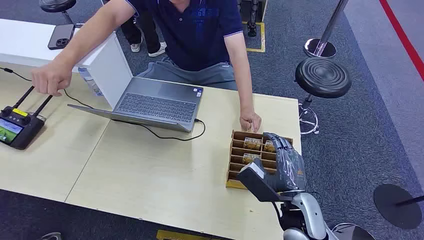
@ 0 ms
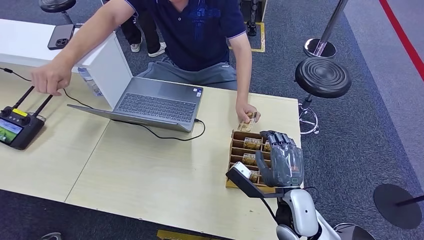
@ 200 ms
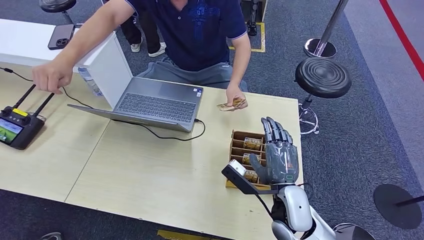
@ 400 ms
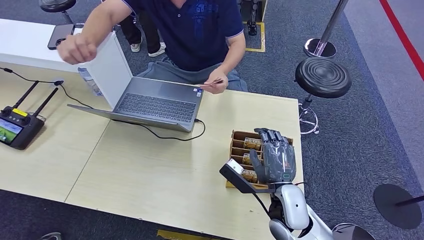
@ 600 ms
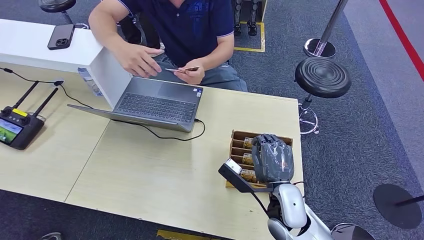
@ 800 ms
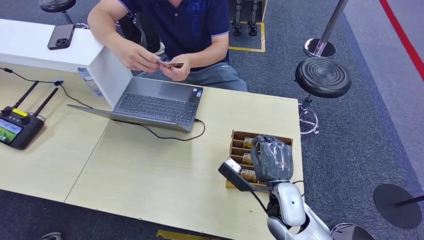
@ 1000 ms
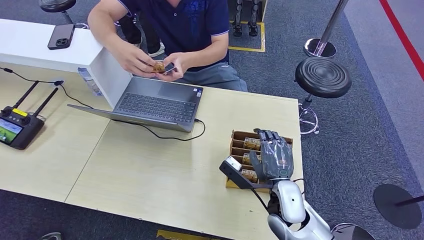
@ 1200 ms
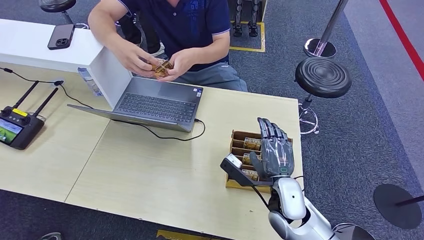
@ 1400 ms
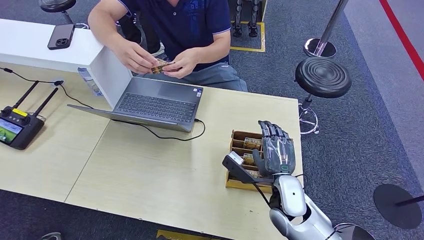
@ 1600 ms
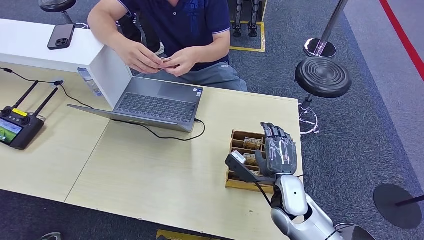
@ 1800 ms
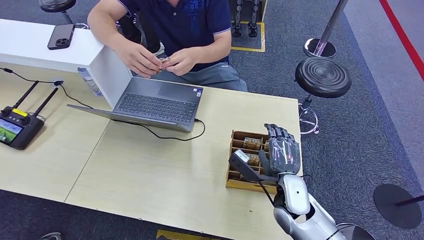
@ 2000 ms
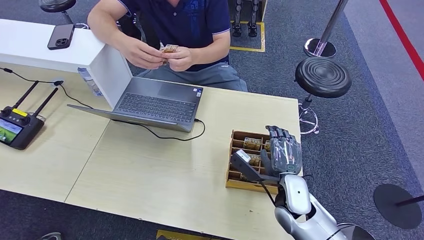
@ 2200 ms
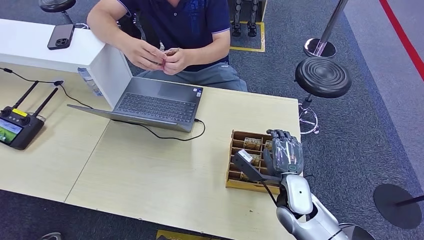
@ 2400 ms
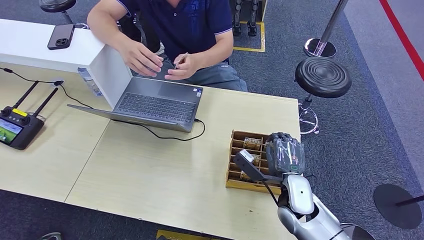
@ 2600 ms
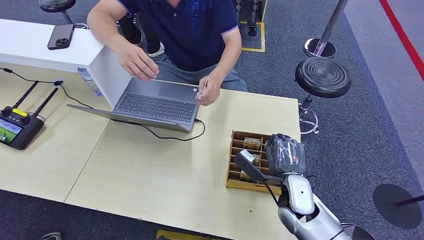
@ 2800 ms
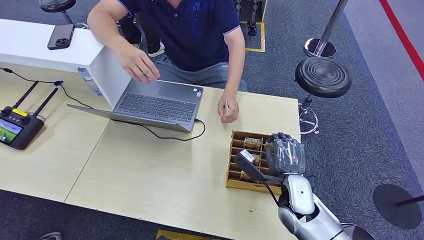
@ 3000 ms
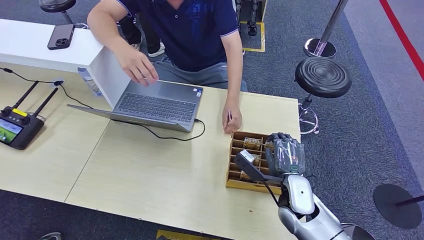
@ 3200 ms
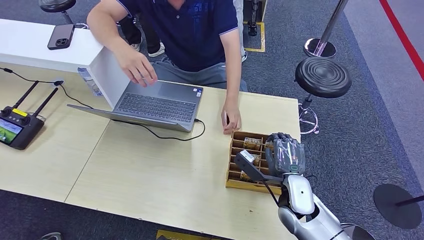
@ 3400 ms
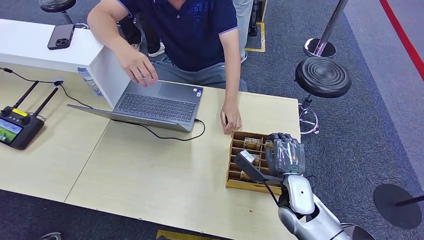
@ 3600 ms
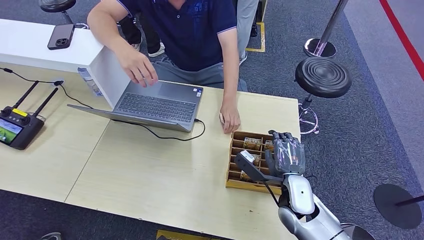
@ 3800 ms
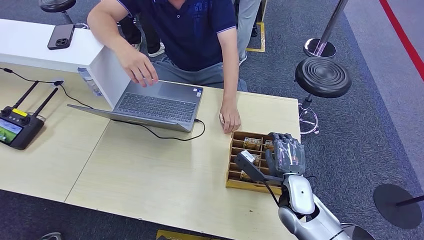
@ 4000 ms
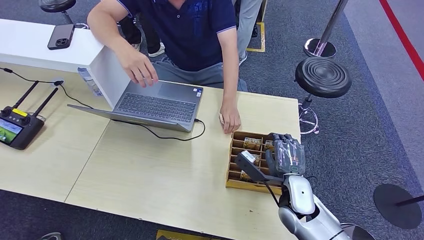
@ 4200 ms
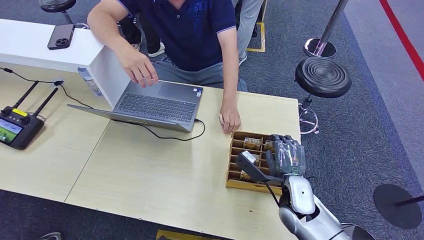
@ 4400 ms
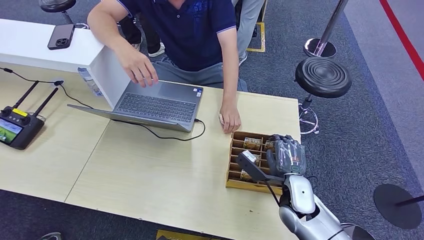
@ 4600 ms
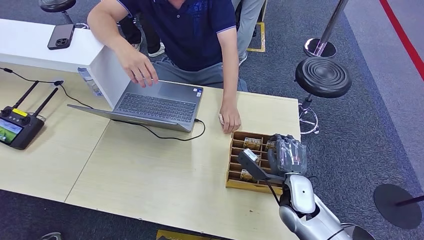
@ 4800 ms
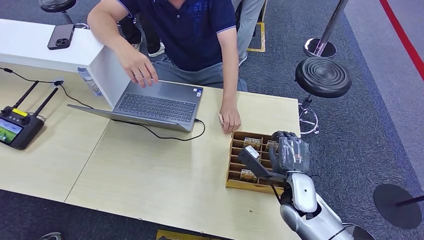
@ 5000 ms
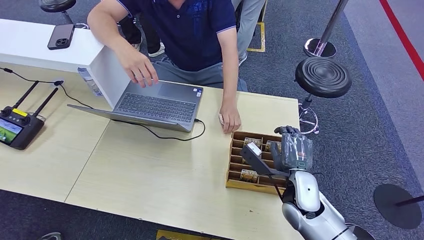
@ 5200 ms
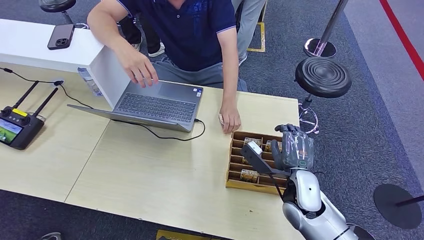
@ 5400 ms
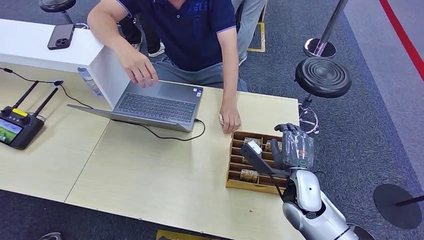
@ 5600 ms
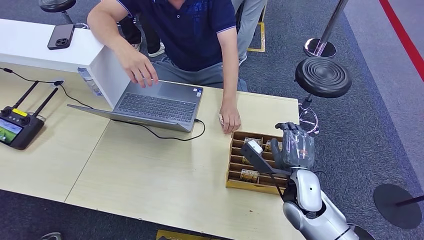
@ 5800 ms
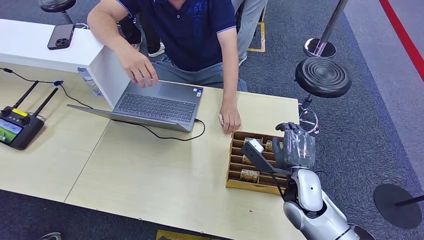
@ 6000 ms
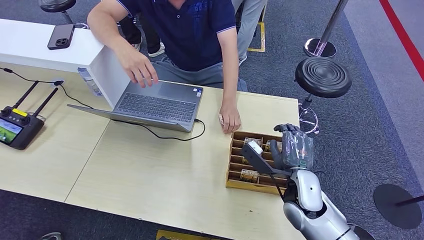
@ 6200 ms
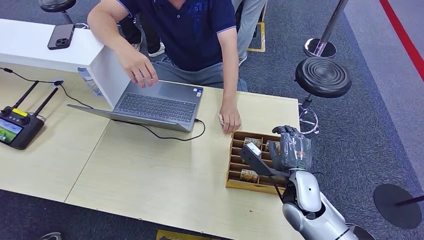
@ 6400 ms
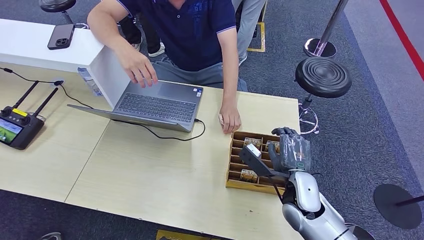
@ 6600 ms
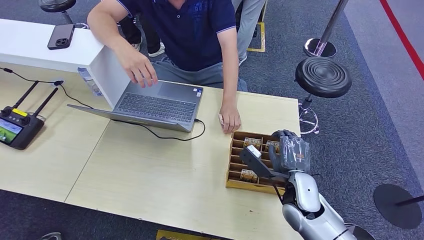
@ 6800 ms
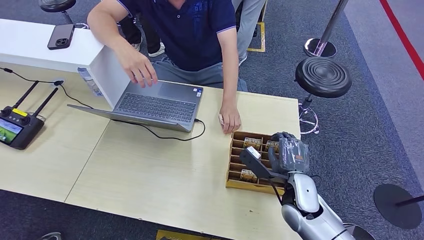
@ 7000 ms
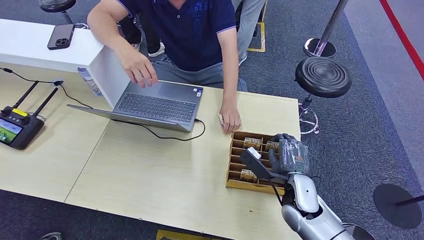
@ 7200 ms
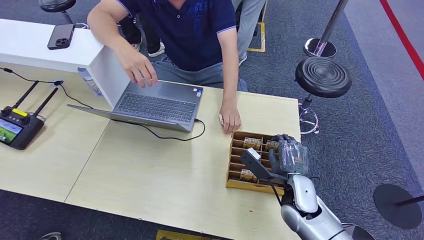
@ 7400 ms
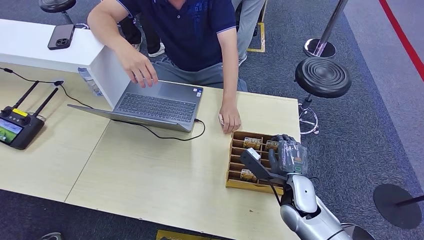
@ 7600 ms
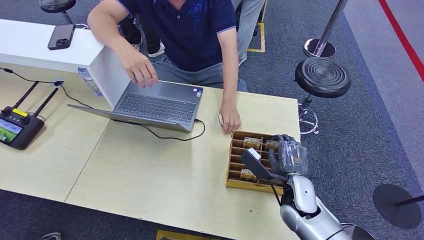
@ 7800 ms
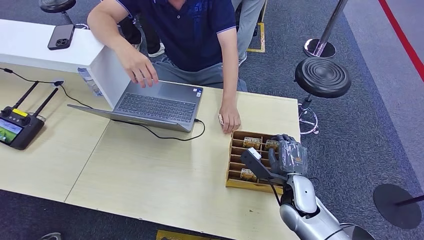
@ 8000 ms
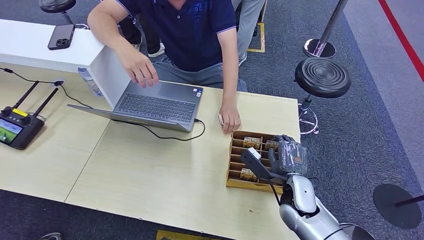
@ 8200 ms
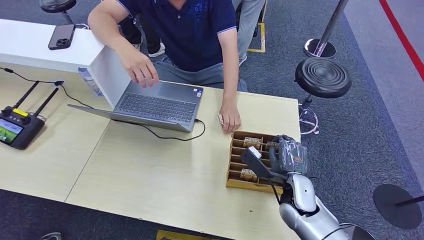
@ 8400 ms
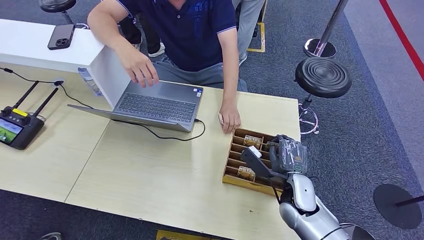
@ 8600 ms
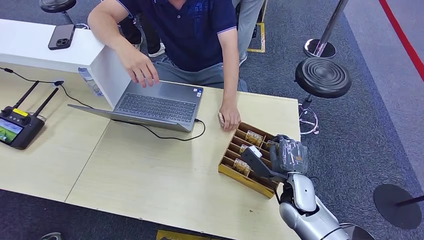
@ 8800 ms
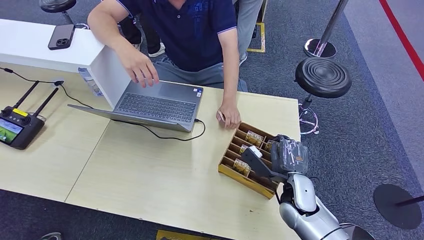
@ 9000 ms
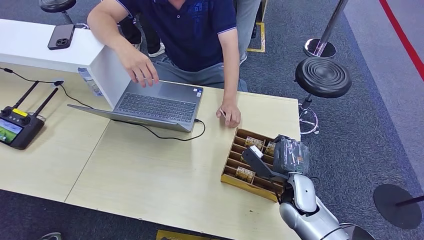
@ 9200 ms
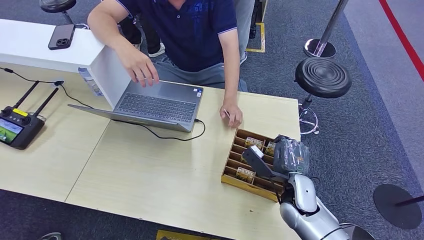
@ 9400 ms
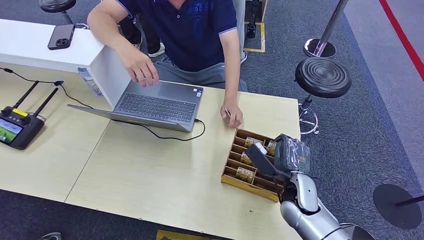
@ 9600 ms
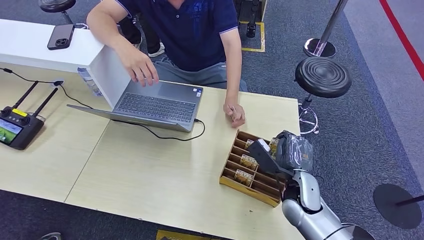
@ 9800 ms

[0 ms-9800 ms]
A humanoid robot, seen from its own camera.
1400 ms to 4200 ms: Both hands stay about where they are.
4200 ms to 9800 ms: The hands stay close to where they were, moving slightly.

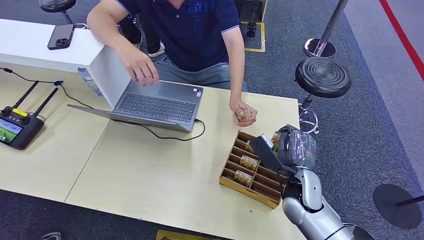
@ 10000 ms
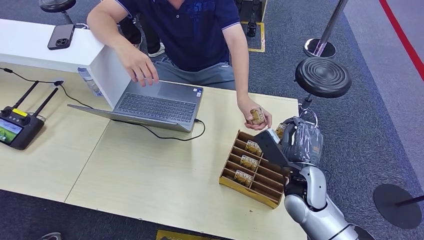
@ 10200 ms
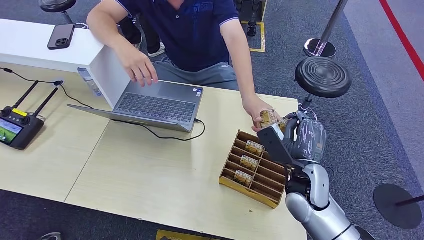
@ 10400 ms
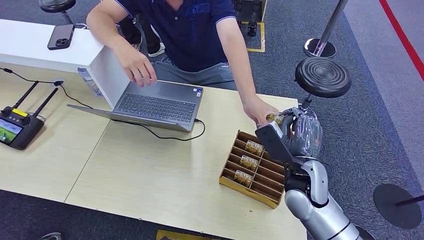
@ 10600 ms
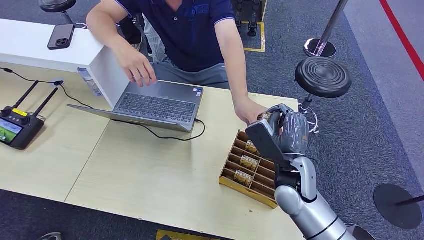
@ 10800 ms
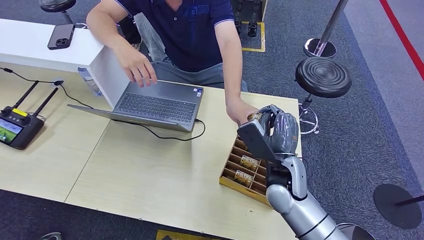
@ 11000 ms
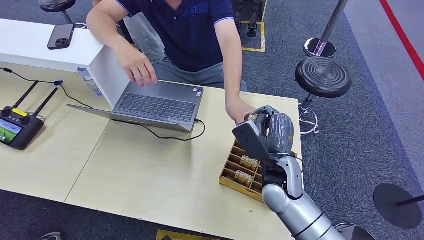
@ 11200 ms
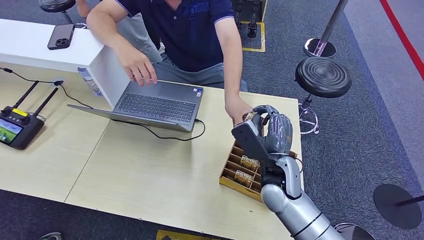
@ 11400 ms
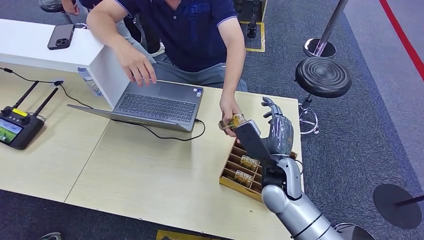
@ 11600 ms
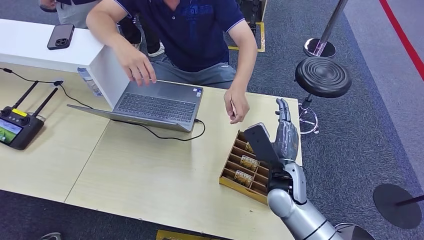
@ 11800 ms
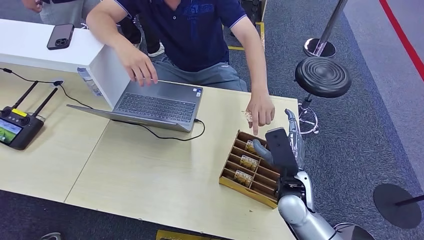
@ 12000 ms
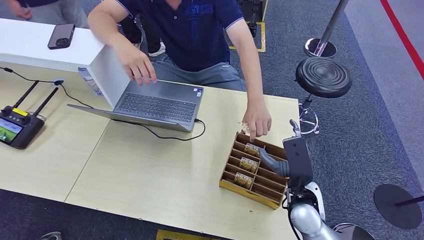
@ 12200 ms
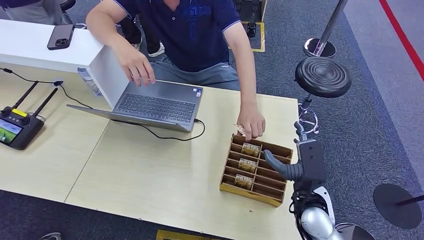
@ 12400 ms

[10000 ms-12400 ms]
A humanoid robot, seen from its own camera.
Step, 10200 ms to 12400 ms: Hand the room card to the target.
10000 ms to 11200 ms: The right hand is displaced to the left by roughly 5 cm.
11200 ms to 12400 ms: The right hand is displaced to the right and backward by some 10 cm.

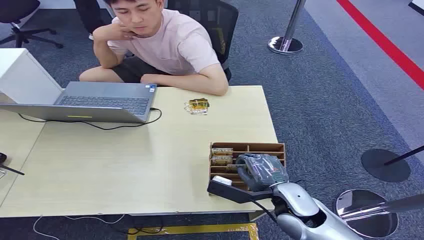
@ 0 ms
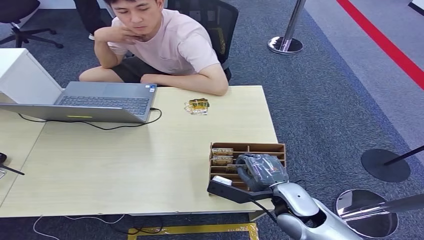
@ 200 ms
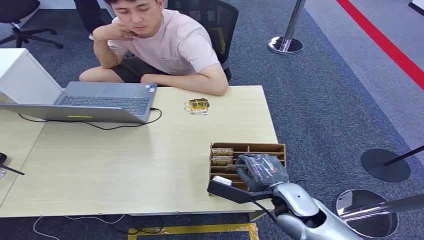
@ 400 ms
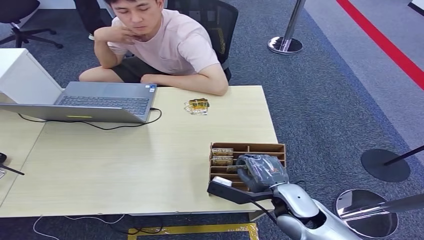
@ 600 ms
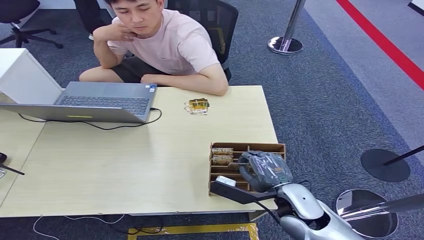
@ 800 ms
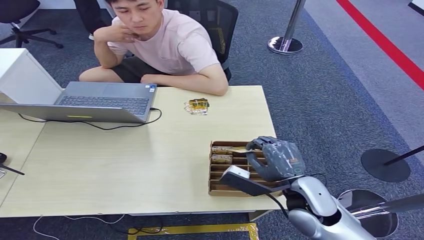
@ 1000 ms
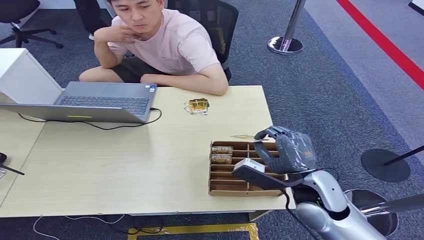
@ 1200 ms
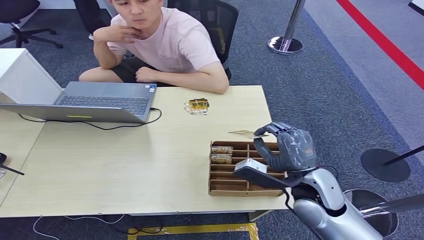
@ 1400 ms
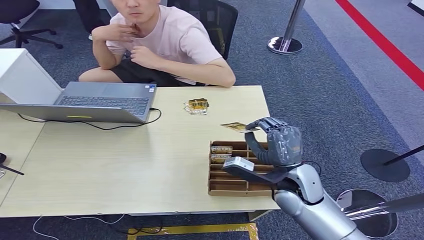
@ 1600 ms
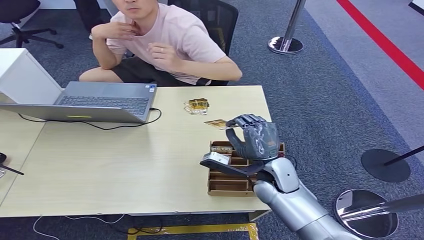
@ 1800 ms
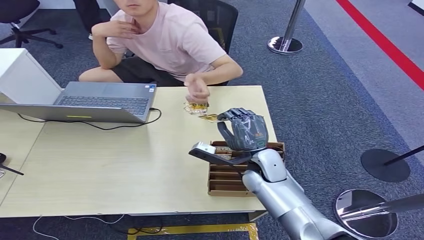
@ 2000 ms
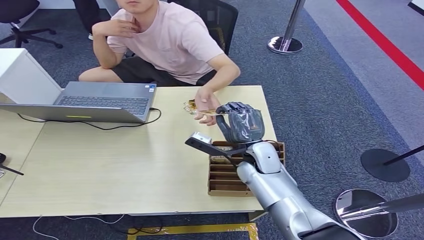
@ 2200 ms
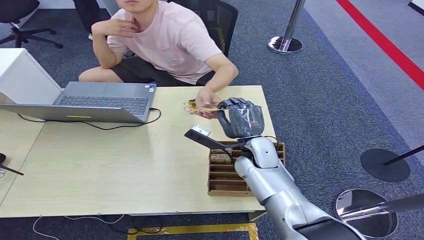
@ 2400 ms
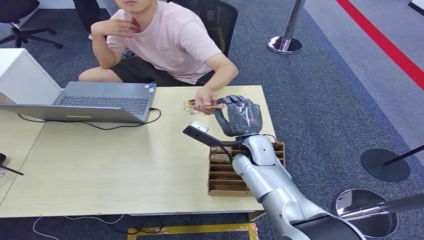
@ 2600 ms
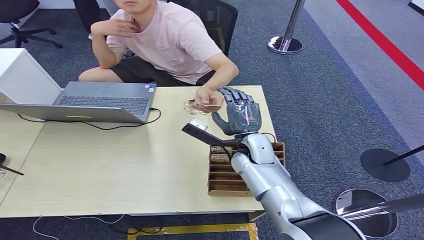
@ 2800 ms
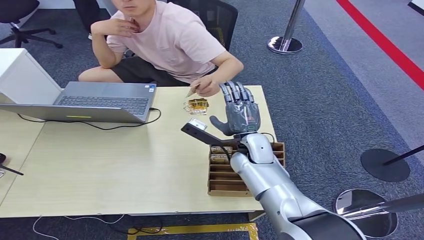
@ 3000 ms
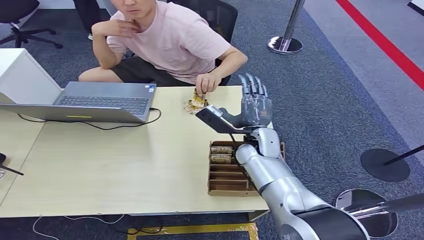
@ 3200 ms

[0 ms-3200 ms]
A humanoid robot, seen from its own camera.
Step, 0 ms to 1600 ms: Pick up the room card from the card holder.
Step, 2000 ms to 3000 ms: Hand the room card to the target.
1600 ms to 3200 ms: The right hand goes roughly 15 cm forward and to the left.
